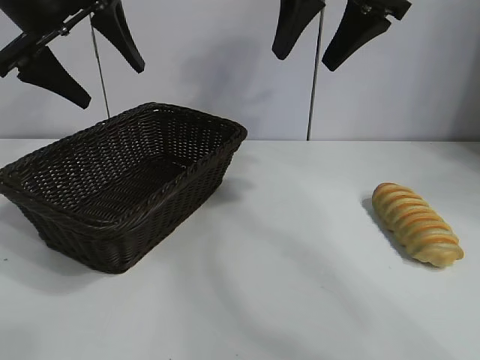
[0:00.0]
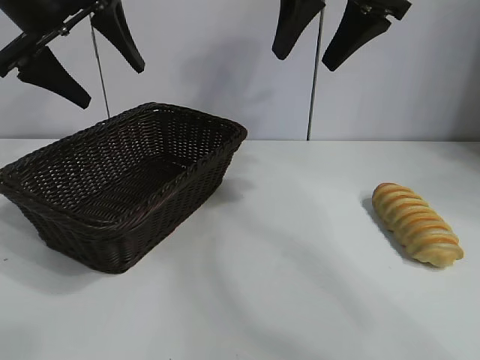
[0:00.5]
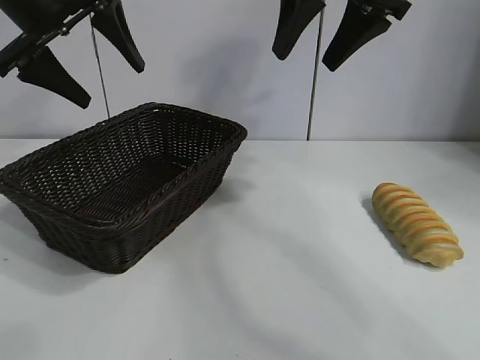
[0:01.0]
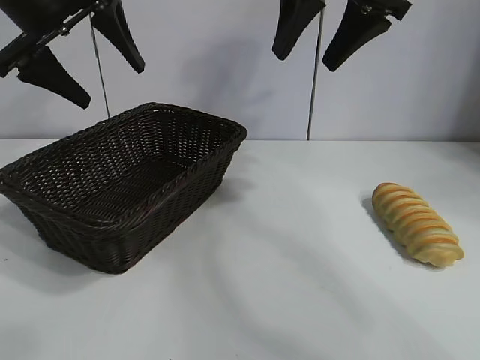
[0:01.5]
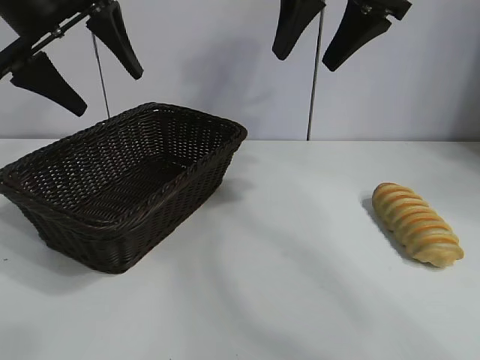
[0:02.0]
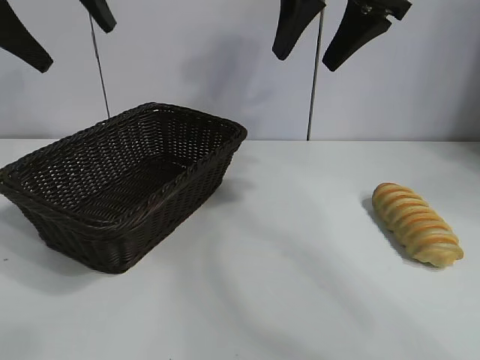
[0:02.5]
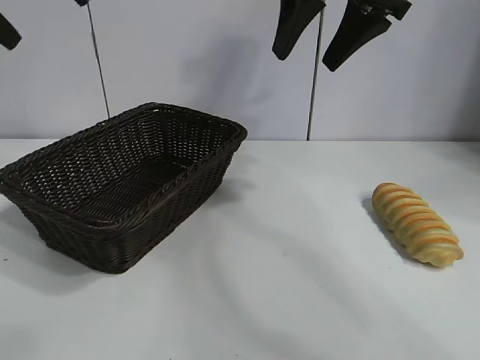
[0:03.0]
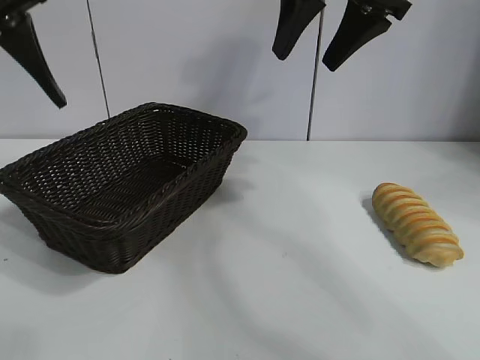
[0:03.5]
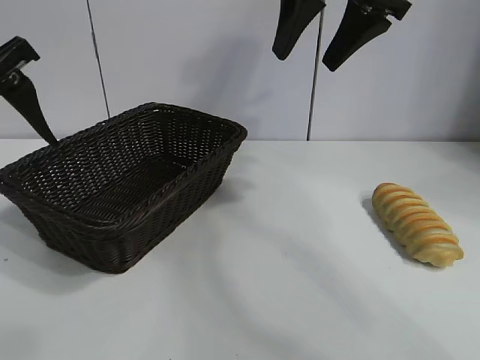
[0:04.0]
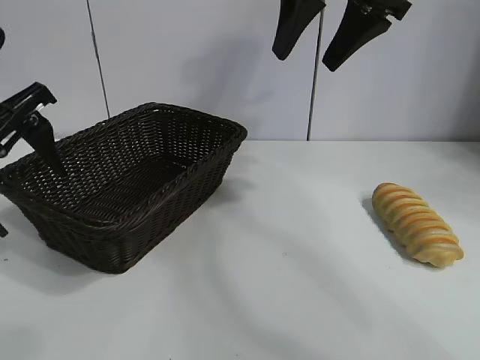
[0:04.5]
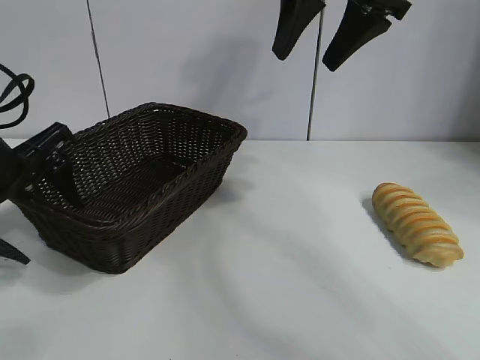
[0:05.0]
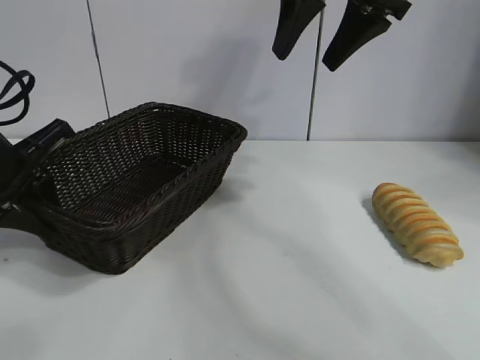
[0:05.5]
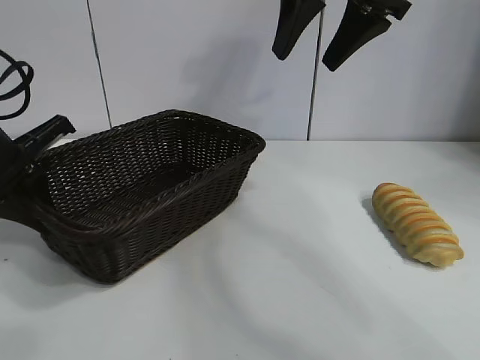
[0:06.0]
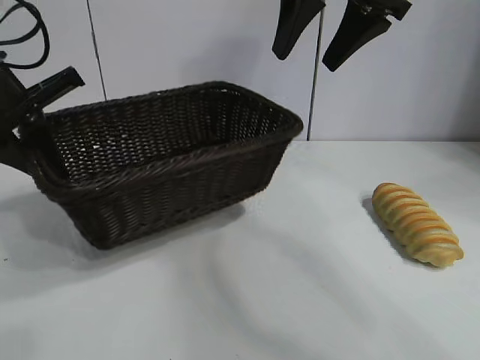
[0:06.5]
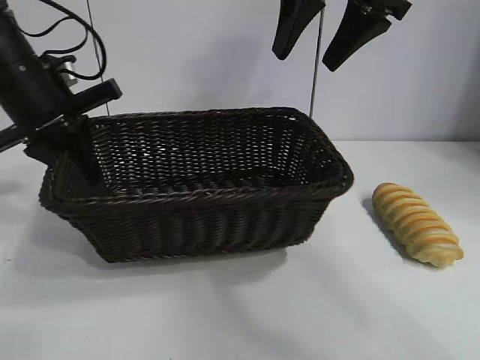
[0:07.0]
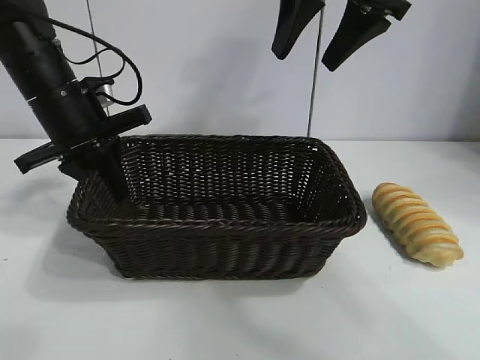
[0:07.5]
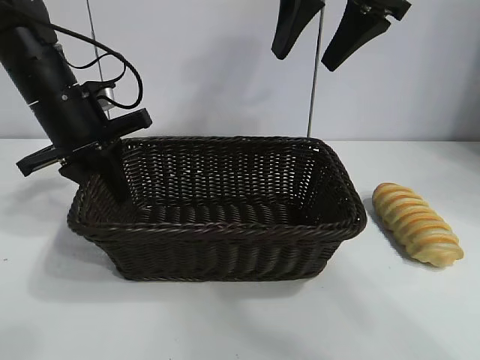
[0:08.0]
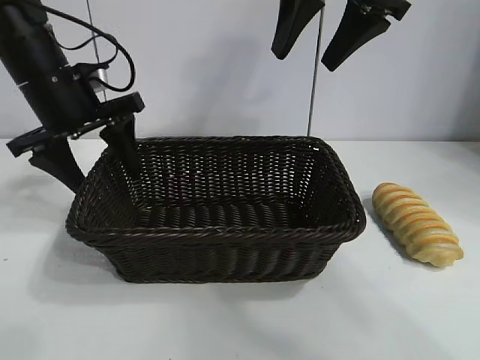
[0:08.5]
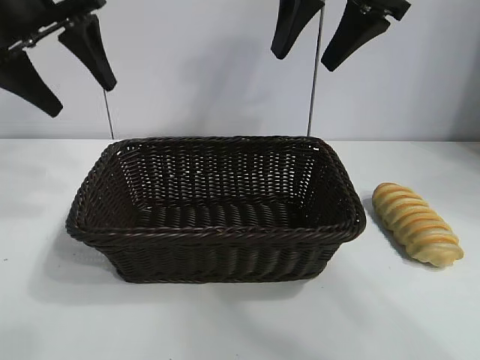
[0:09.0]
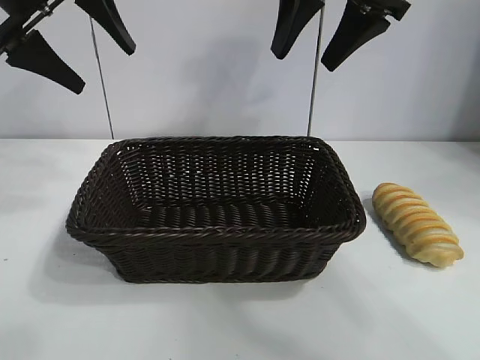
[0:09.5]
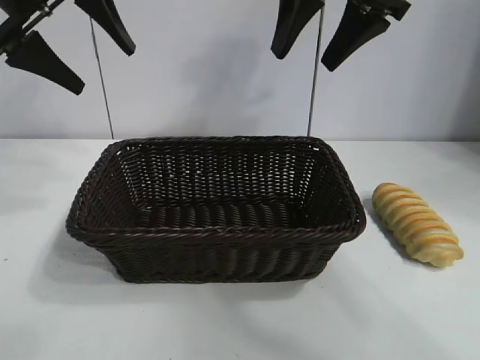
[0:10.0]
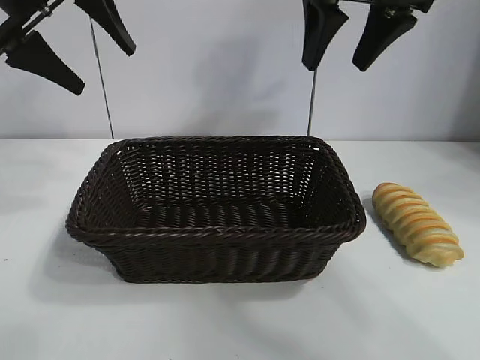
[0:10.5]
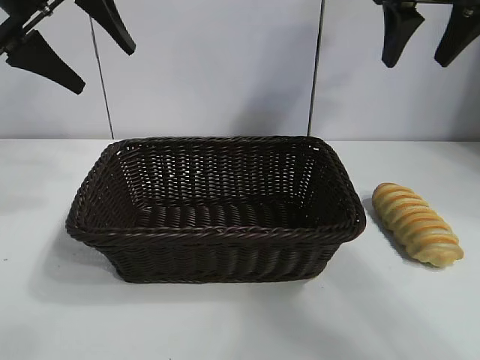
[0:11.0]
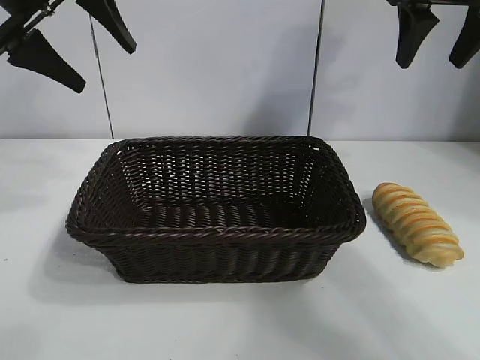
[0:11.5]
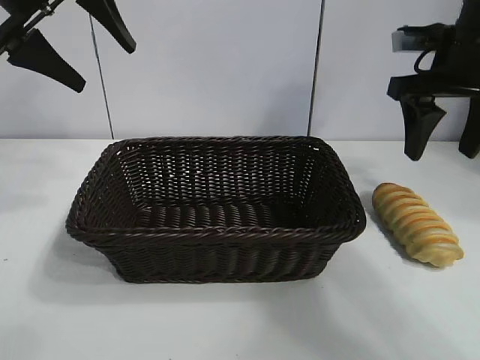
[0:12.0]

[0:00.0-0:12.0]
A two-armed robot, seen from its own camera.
Task of the whole recording: pick up the long bread and put it into the basket.
Step, 0:02.0 to 0:05.5: Grasp the basket with the left gripper.
Step, 0:06.0 to 0:08.0: Place the basket in the center of the table with the left gripper.

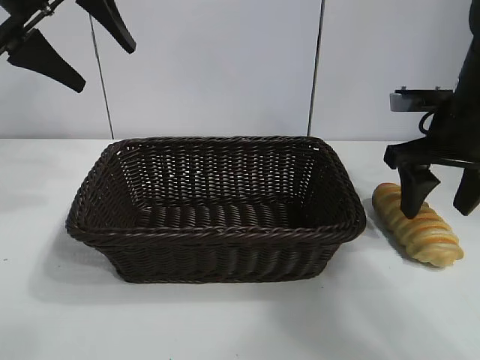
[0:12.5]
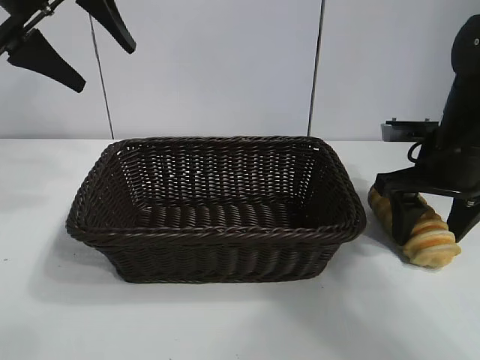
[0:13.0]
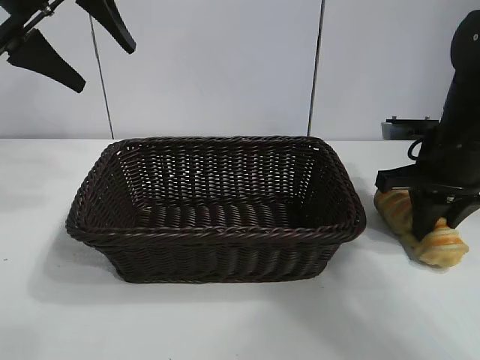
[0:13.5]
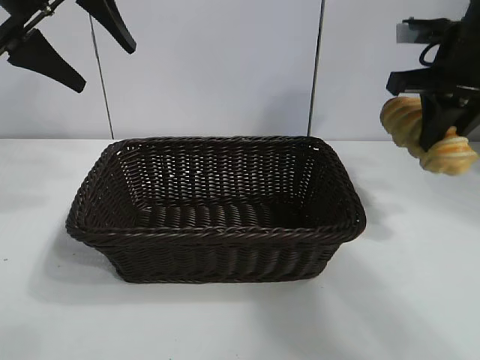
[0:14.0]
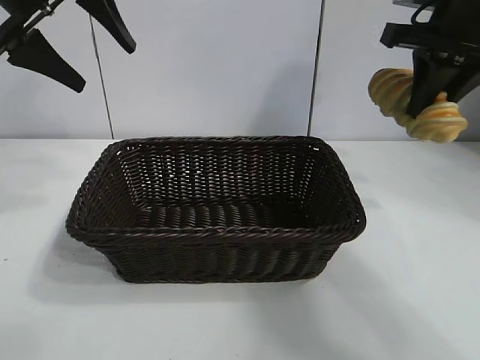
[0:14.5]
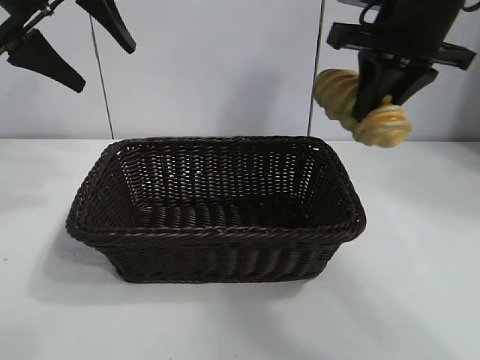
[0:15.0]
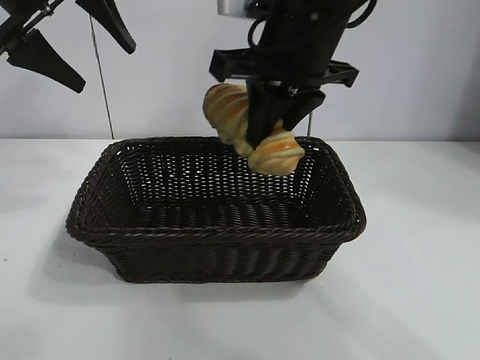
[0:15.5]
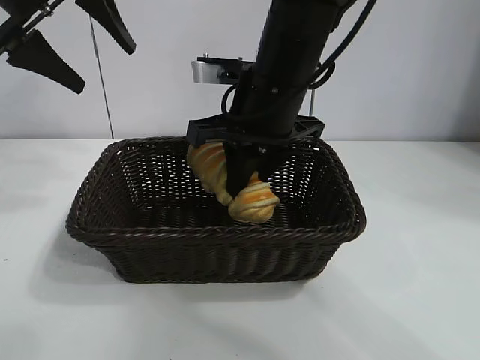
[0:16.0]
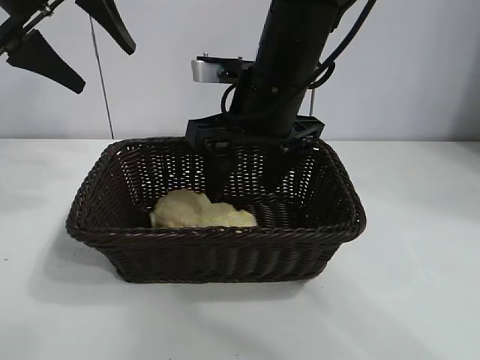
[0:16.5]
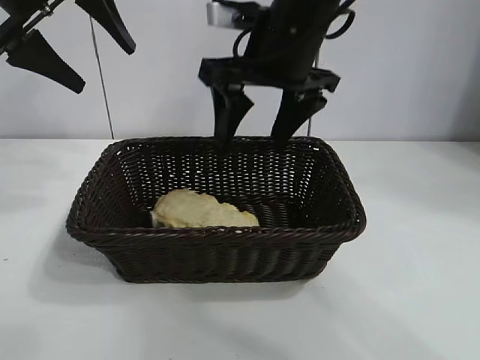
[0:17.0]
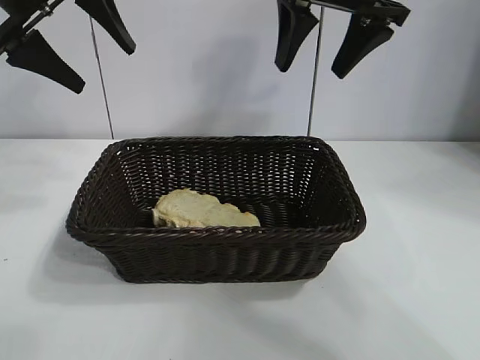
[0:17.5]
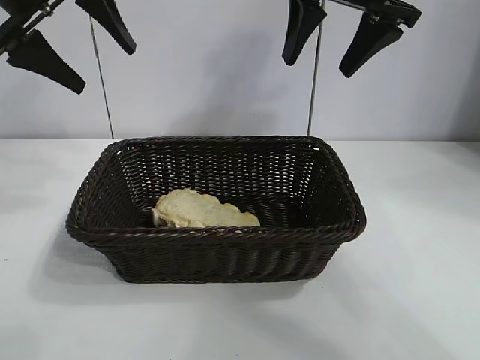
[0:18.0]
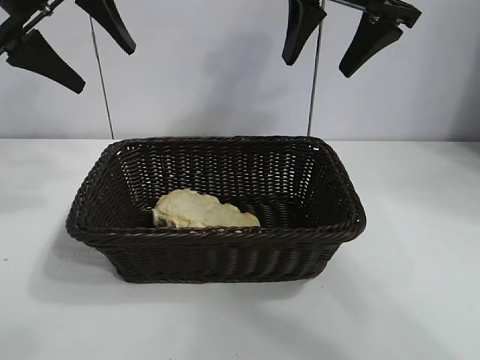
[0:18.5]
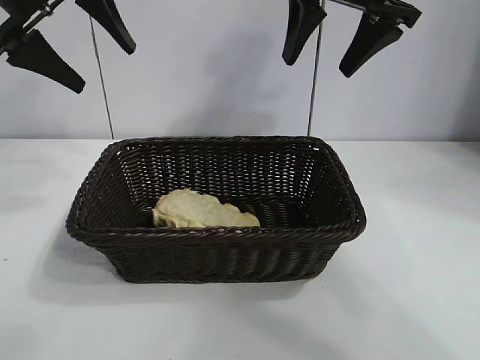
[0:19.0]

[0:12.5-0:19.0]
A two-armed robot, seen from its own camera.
Task of the whole recording: pick up the long bread and put it into the basket.
Step, 0:14.0 to 0:16.5: Place the long bread in the basket with right gripper.

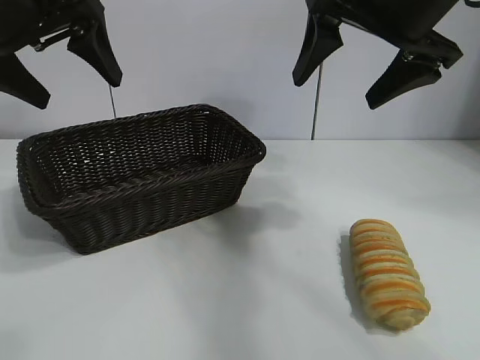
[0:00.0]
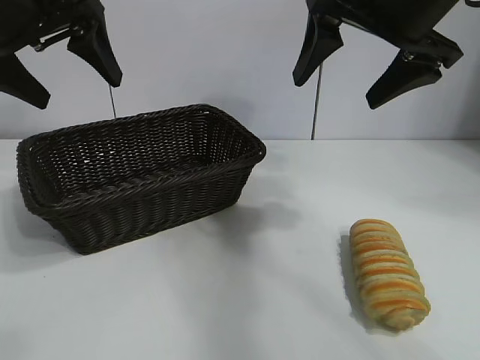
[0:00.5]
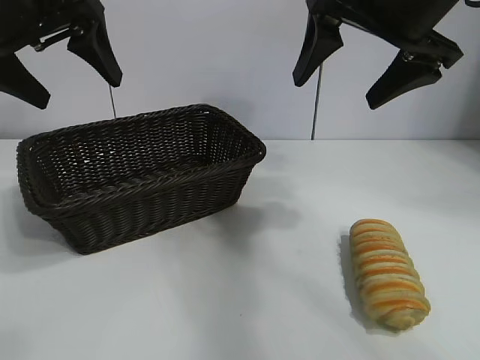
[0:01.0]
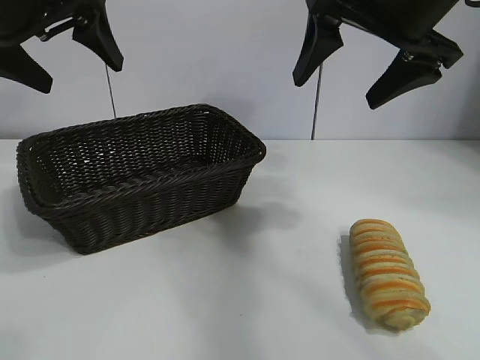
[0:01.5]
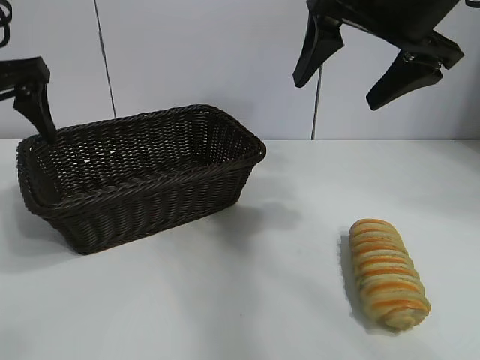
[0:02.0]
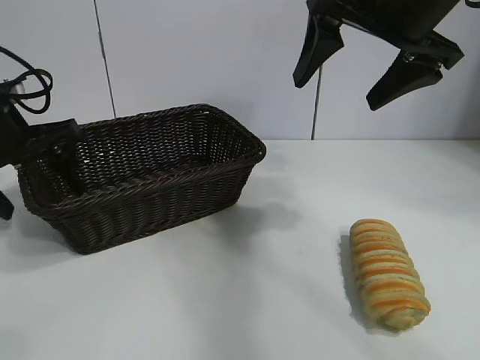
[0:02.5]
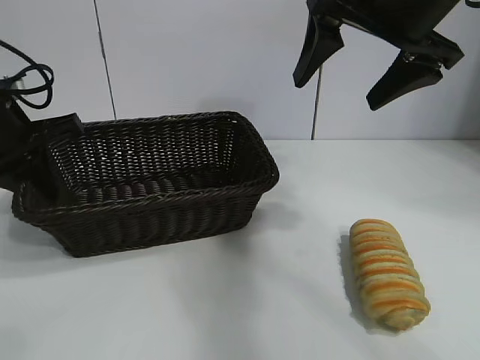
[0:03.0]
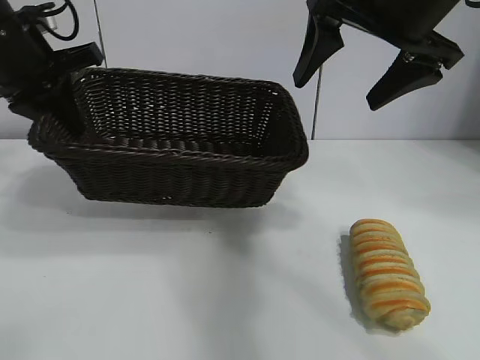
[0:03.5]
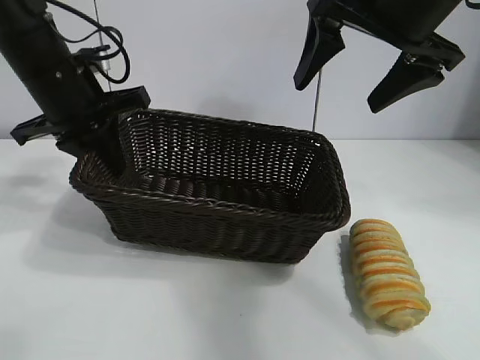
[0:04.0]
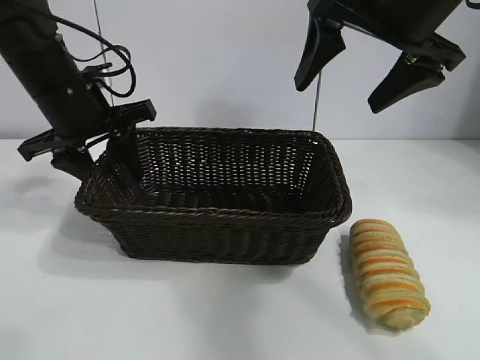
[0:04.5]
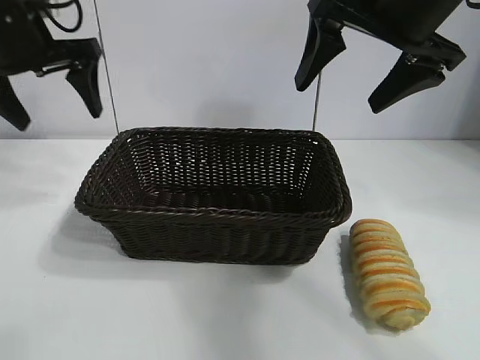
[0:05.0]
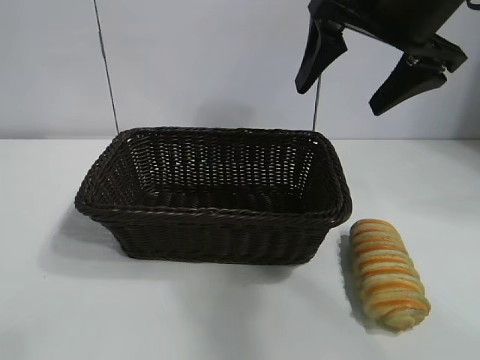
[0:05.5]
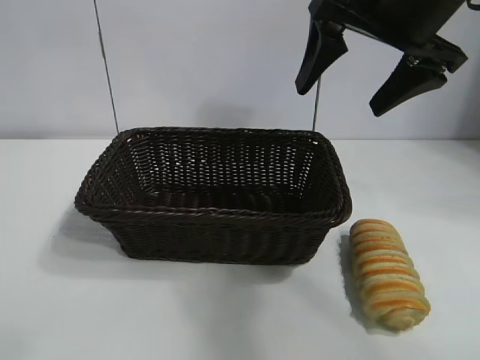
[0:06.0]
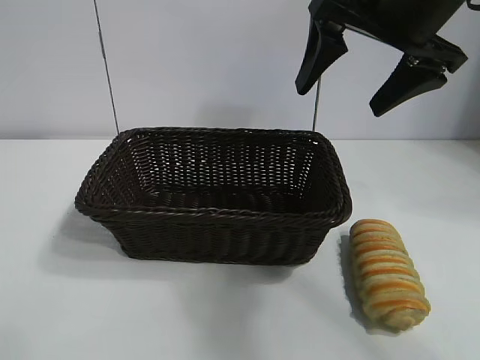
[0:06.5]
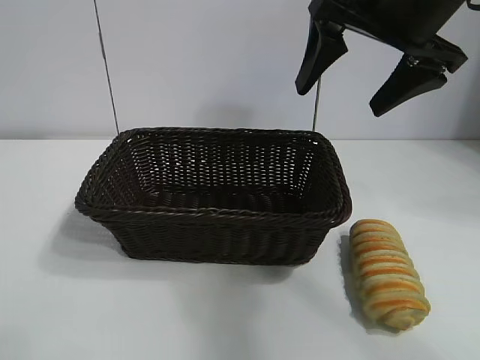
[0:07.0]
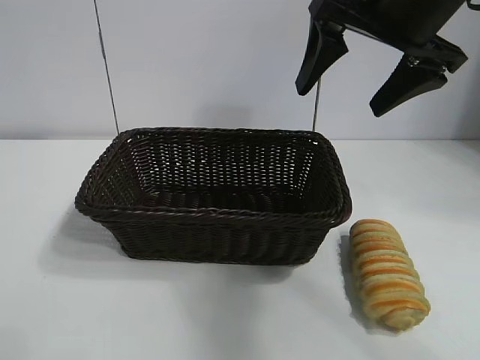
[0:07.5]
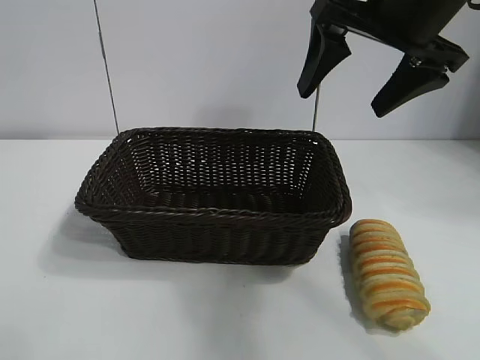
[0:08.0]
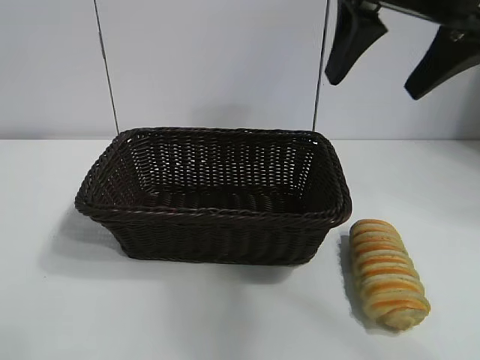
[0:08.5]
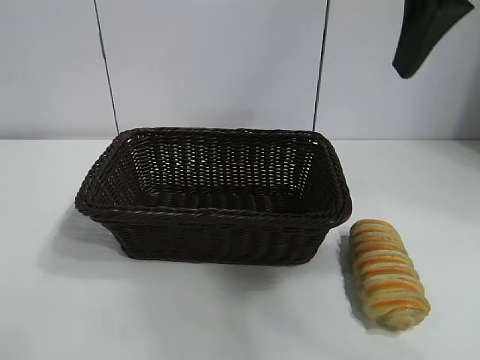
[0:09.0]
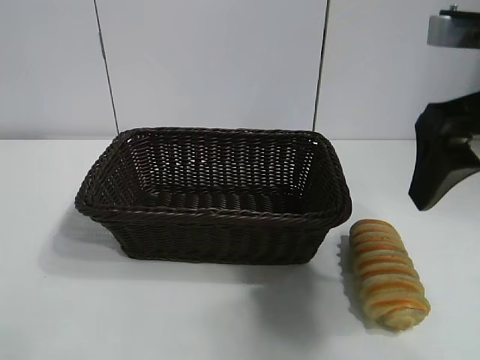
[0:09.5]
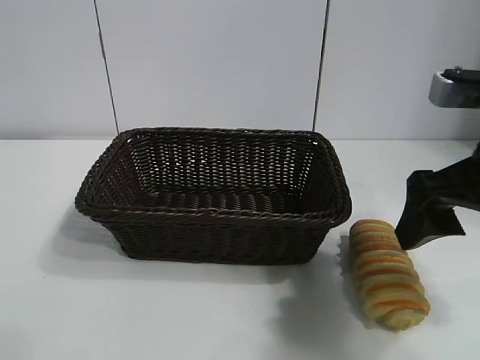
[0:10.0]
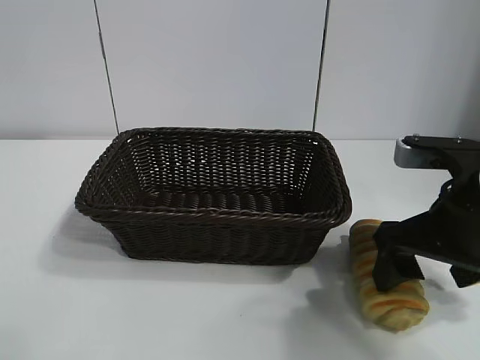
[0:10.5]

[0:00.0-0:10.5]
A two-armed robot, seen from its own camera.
Task of the whole recording: pick up the long bread and put it into the basket.
Step, 0:01.5 to 0:02.5: Grasp the basket with the left gripper.
Step, 0:03.0 to 0:04.5: Place the basket in the center of the table with the left gripper.
